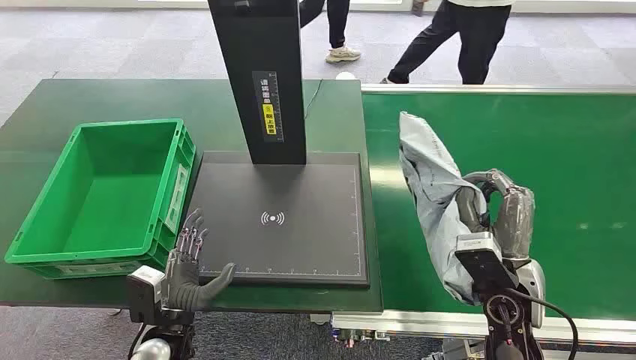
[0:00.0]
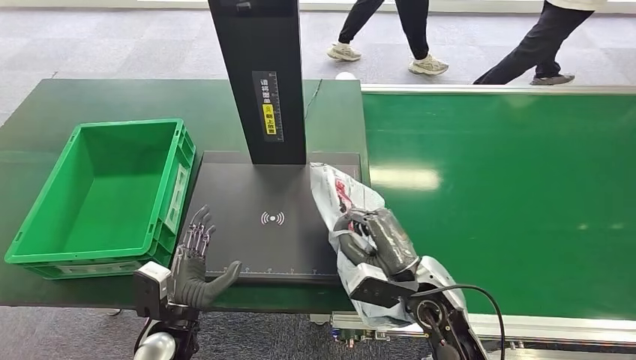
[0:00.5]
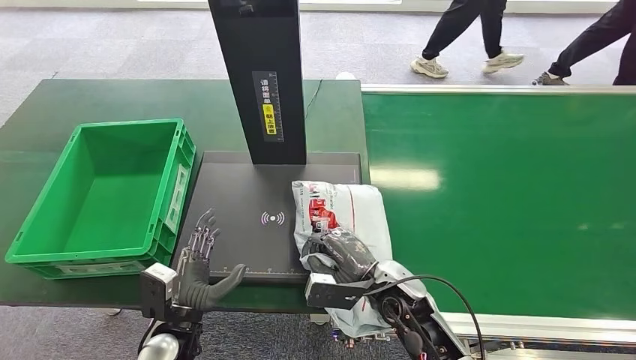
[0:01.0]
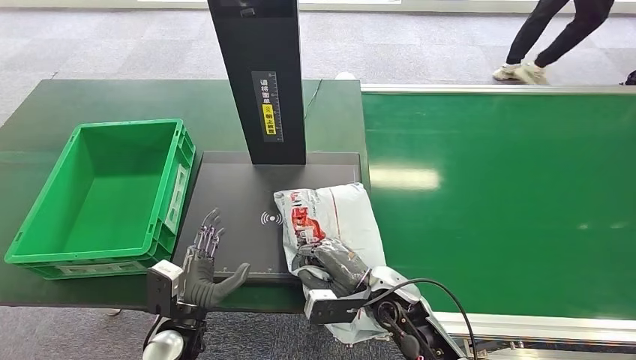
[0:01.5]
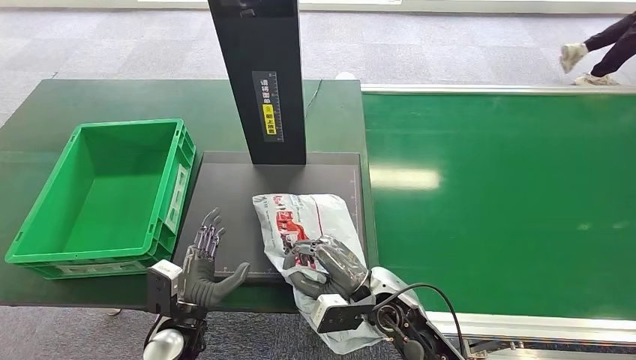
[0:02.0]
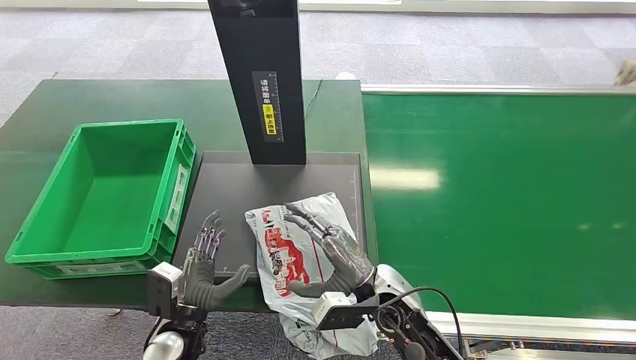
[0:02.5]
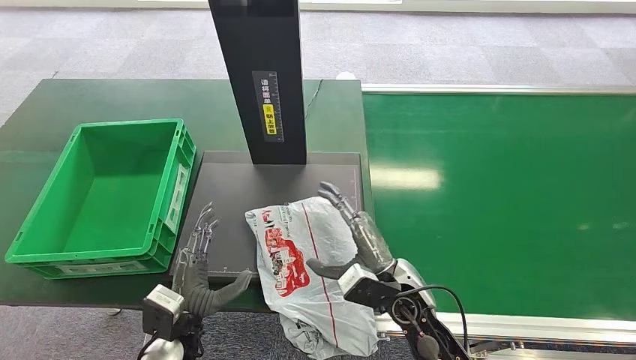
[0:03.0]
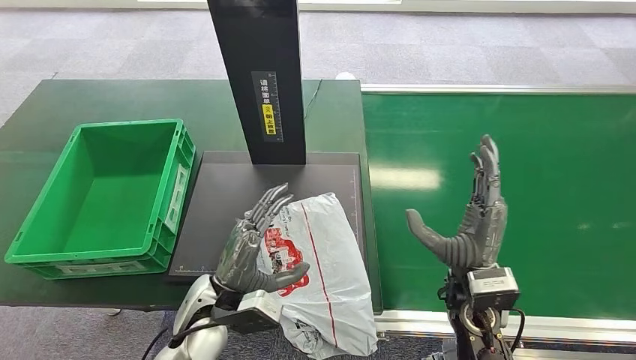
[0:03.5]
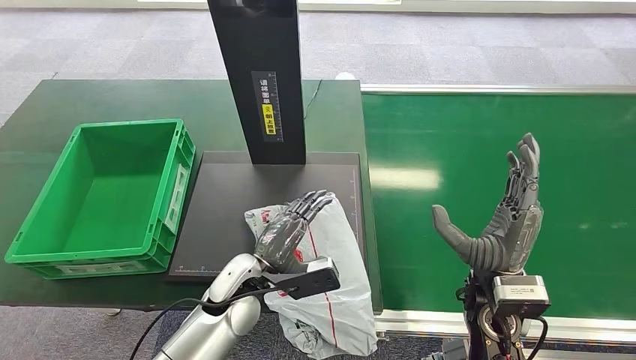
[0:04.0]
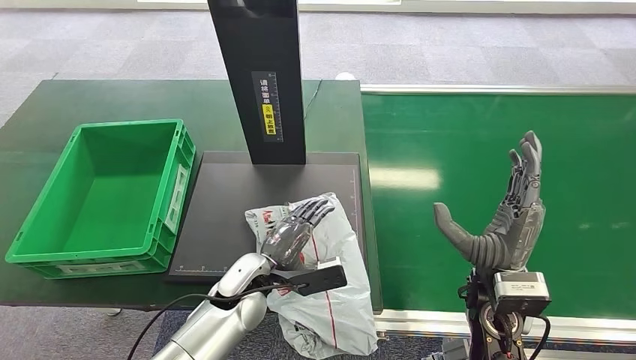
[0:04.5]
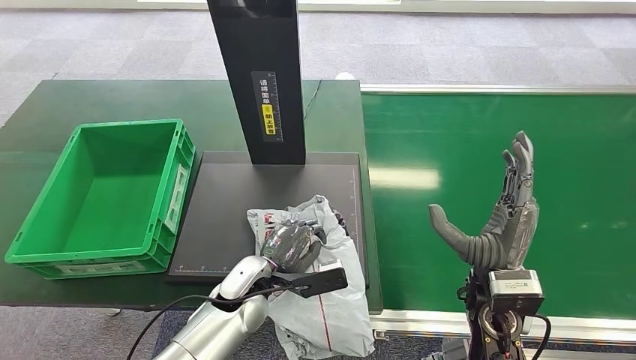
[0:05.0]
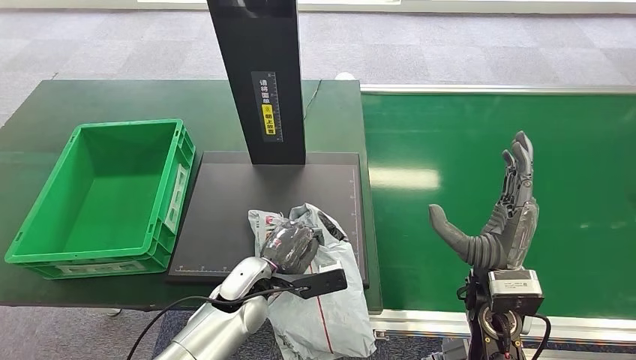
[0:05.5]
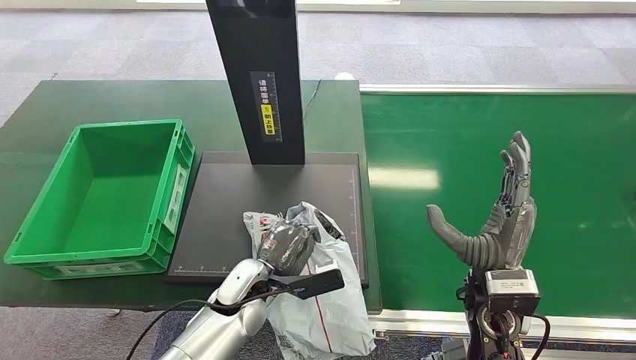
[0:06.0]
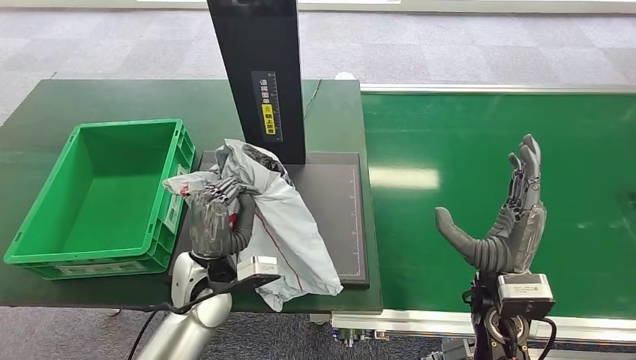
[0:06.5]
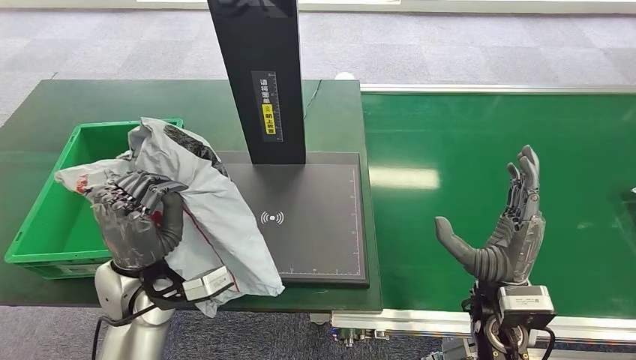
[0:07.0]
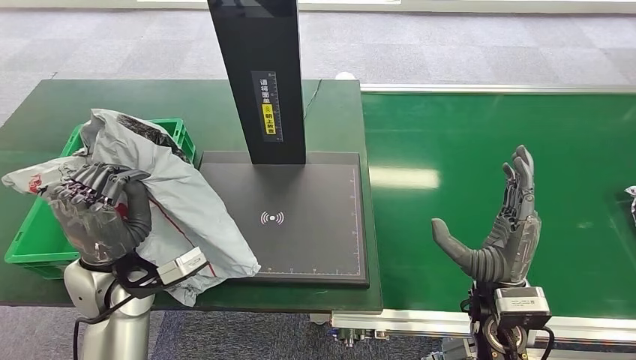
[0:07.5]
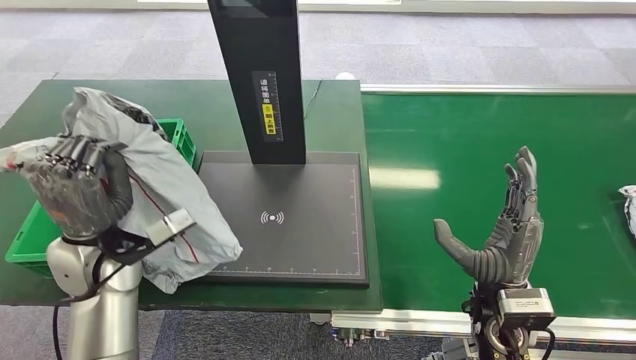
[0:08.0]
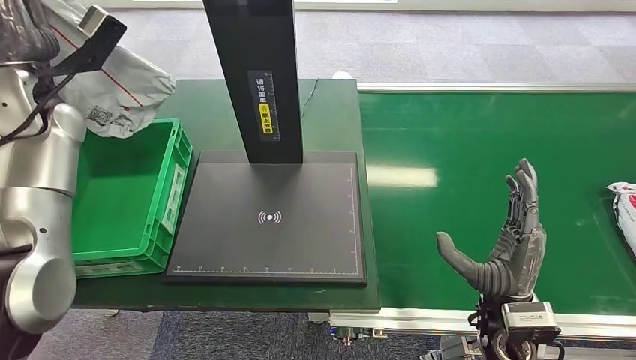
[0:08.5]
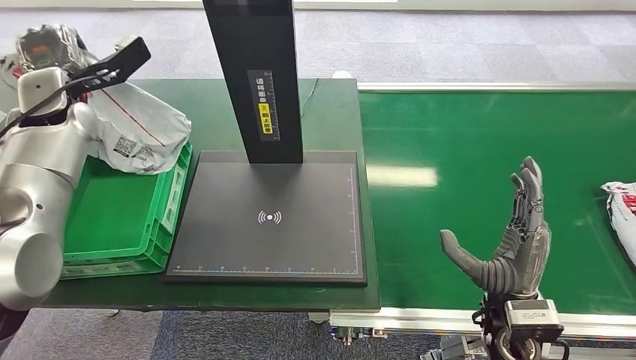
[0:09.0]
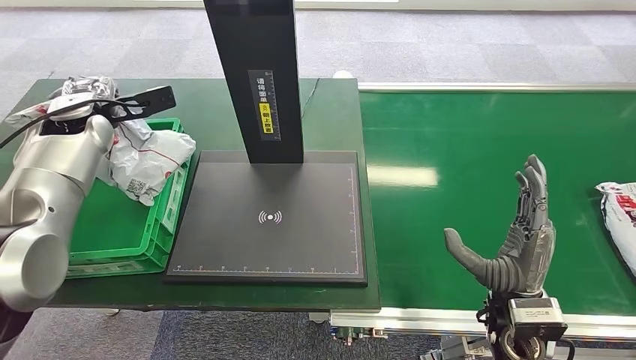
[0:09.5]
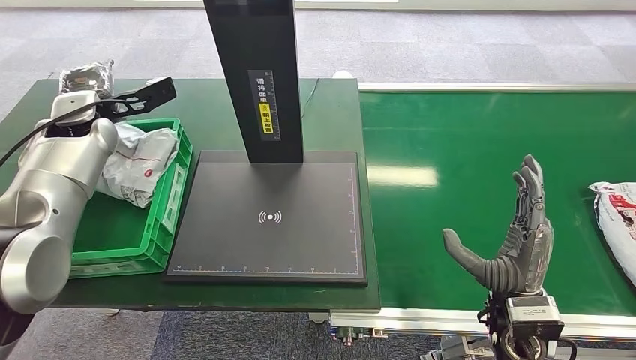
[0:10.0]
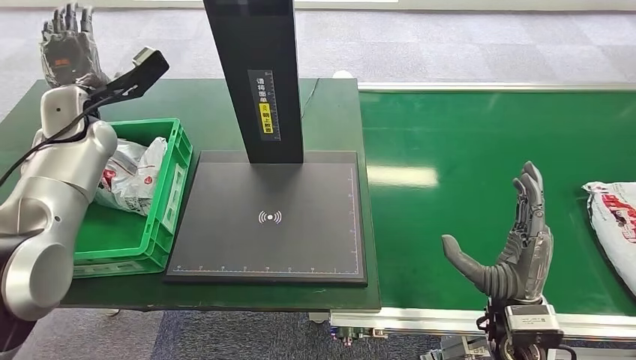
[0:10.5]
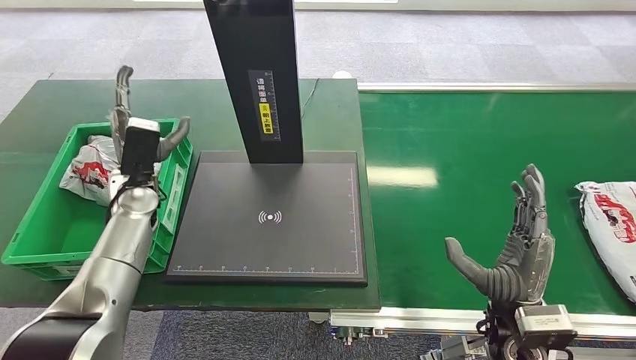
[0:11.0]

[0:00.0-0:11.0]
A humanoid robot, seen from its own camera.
Task of the whole recording: Weigh the package on the weighing device and place it in the left basket.
0:02.0 to 0:03.5: The right hand shifts about 10 cm to the right and upward. The left hand moves upward and to the right, roughly 10 cm.
0:03.5 to 0:05.5: The left hand shifts roughly 5 cm forward.
